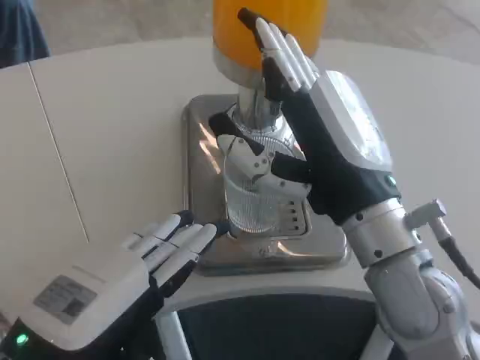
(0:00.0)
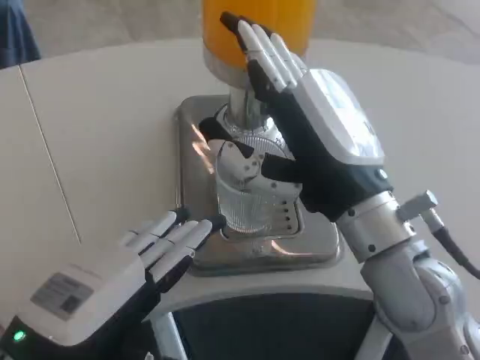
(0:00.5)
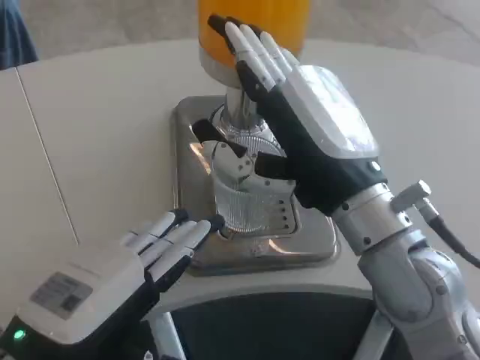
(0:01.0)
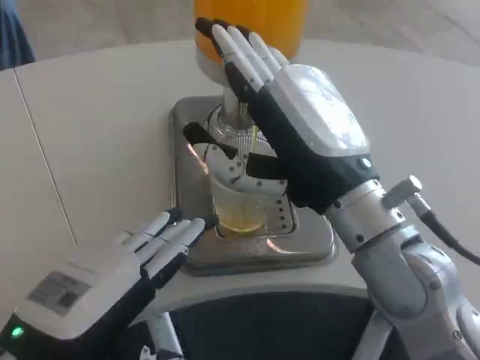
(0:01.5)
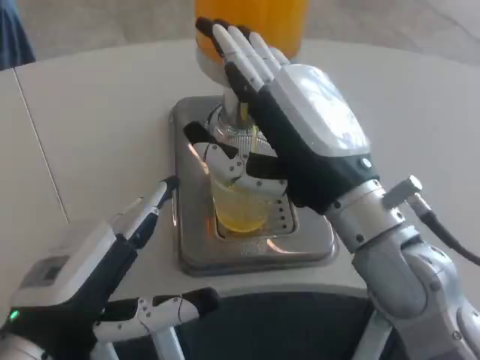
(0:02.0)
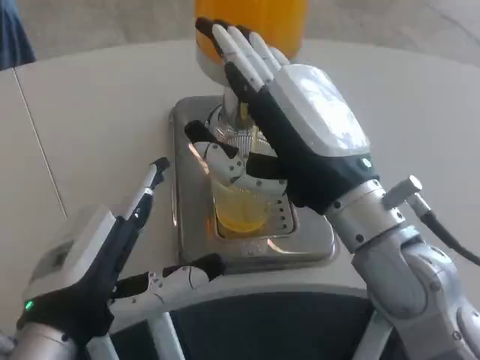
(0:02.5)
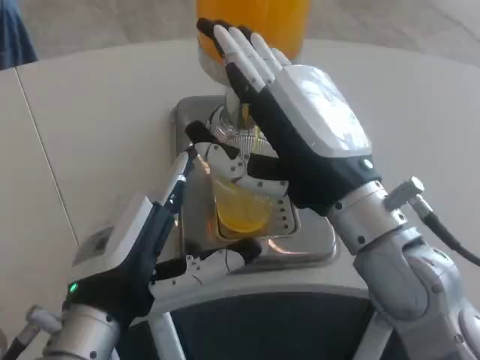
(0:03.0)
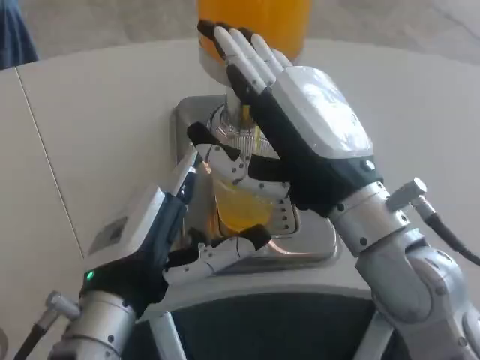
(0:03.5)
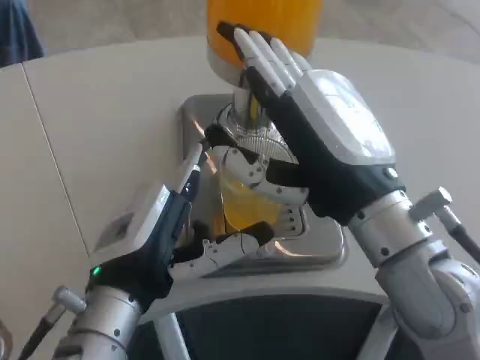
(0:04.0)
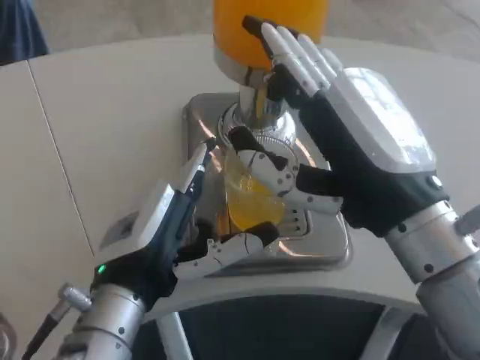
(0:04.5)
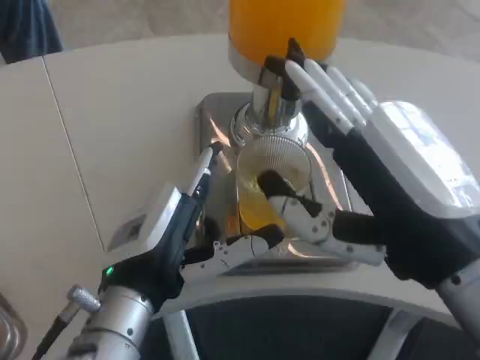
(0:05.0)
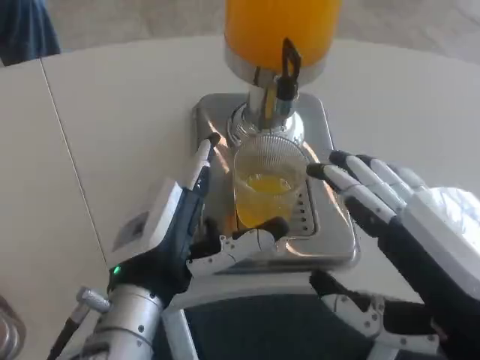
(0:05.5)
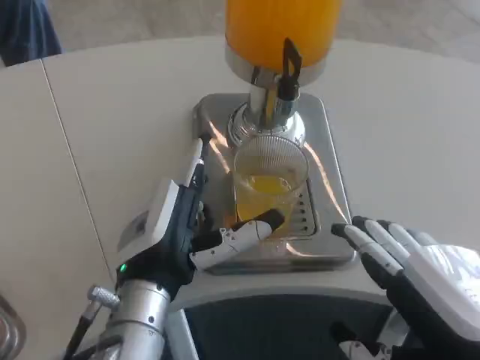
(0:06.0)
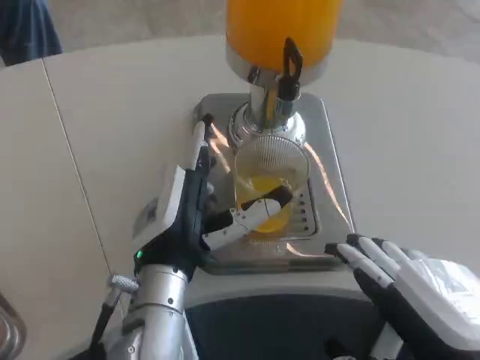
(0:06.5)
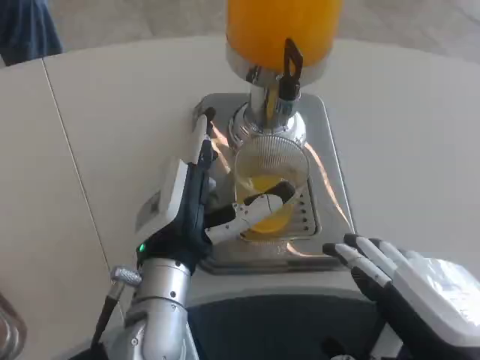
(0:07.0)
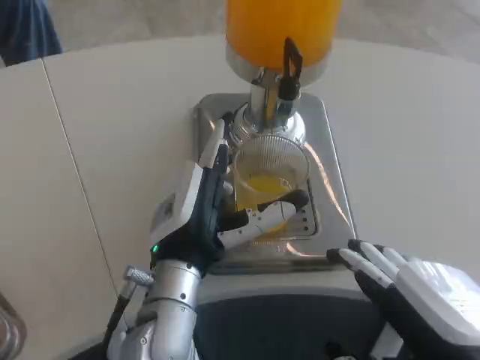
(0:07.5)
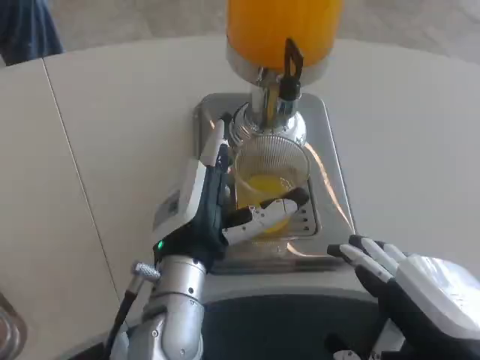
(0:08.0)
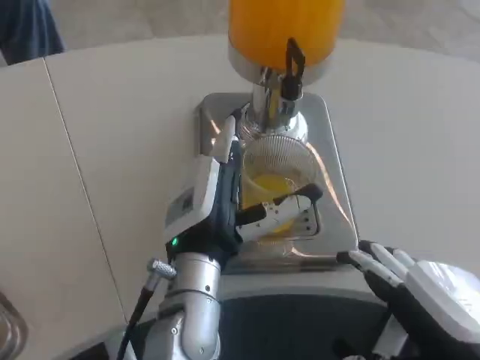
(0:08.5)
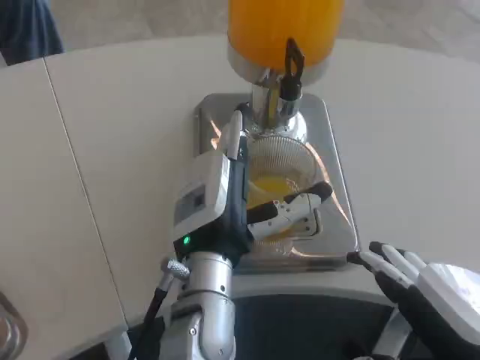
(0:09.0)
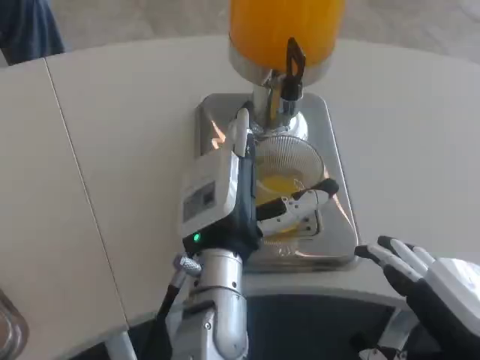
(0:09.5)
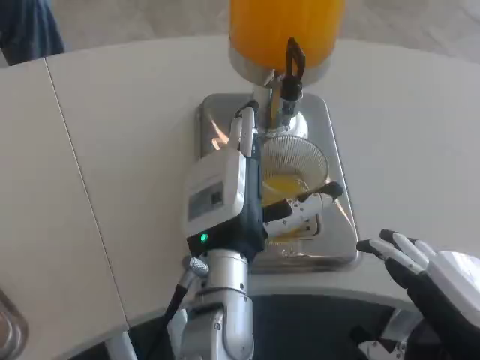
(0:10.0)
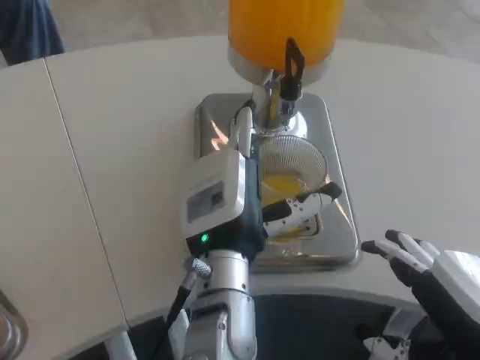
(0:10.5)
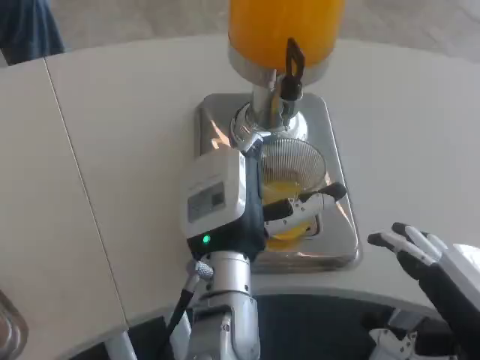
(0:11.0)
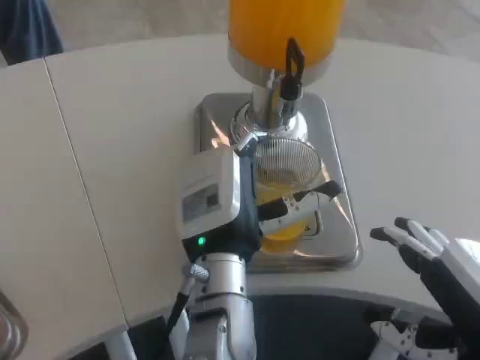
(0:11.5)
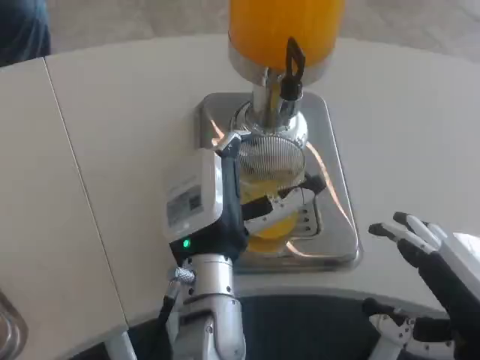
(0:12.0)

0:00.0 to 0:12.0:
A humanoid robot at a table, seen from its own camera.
Task of the whole recording: Grasp the cup under the faucet to collect the drink, then remove the cup.
0:02.0 to 0:04.0: The left hand moves to the right, roughly 5 cm.
0:04.0 to 0:06.0: The right hand moves backward and to the right, about 15 cm.
0:06.0 to 0:08.0: There are only small adjustments of the hands.
0:10.0 to 0:12.0: The hands make only small movements.

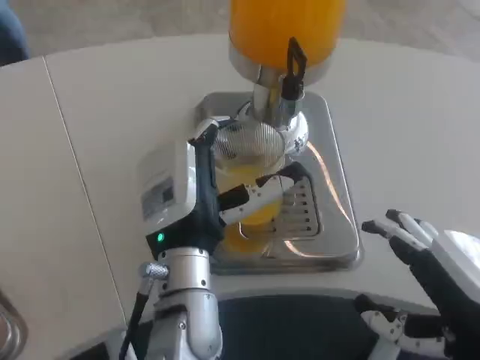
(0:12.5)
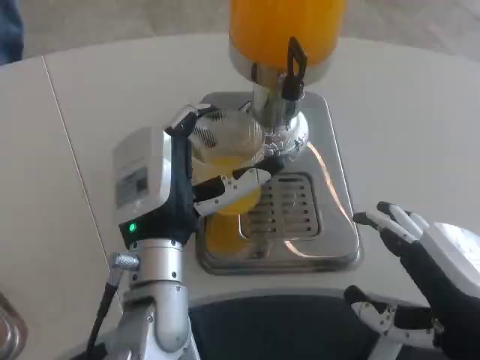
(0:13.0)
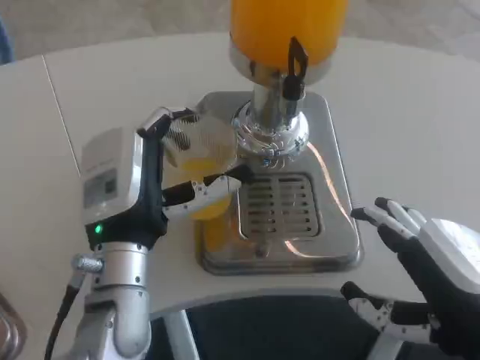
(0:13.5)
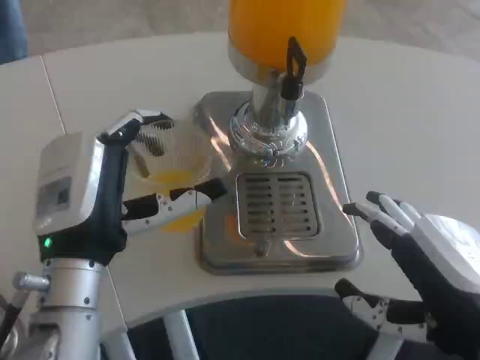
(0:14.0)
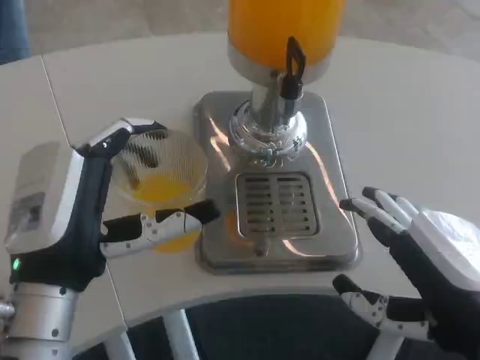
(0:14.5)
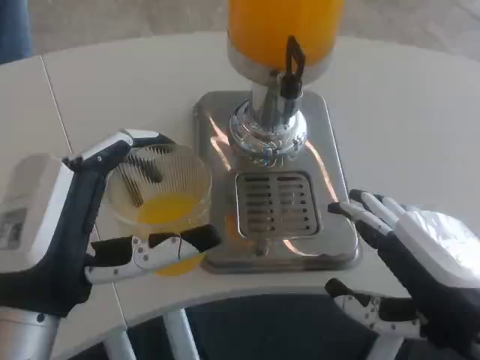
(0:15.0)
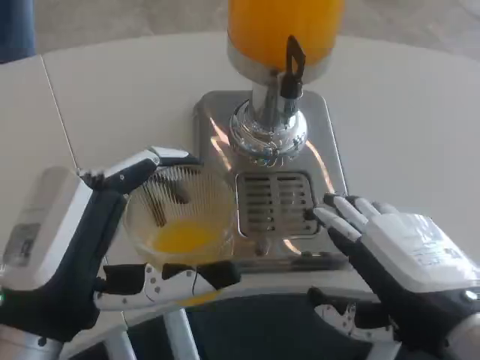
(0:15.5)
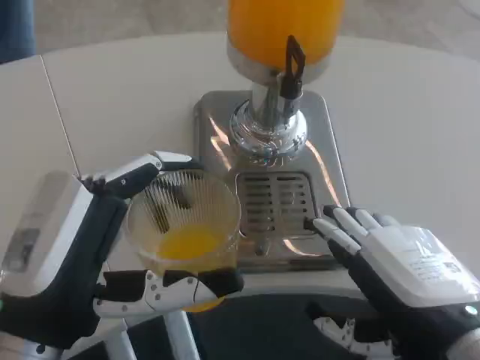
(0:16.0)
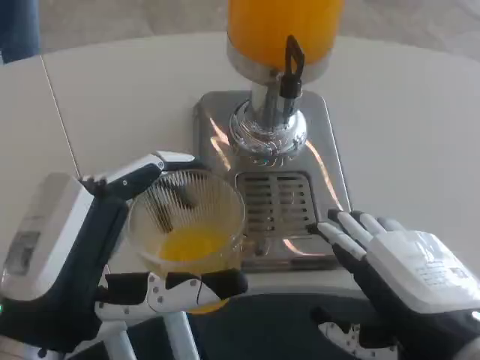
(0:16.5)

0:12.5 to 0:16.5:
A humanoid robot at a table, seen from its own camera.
Task of the whole recording: Grasp the cup under the faucet to collect the drink, then remove the cup.
0:12.5 to 0:14.5: The left hand travels to the left and backward by about 15 cm.
0:14.5 to 0:16.5: The left hand heads backward, covering some 5 cm.

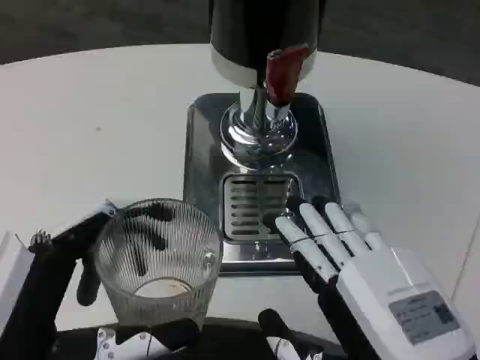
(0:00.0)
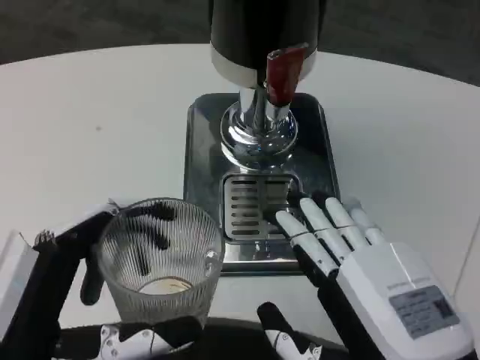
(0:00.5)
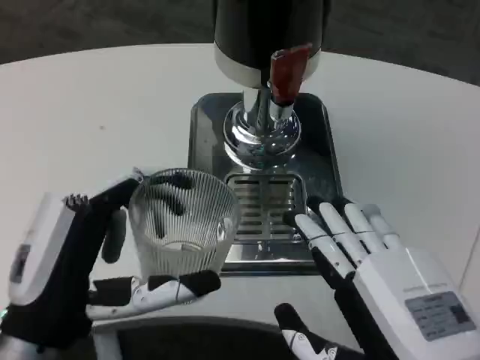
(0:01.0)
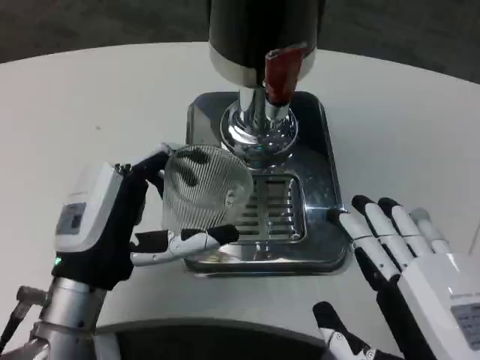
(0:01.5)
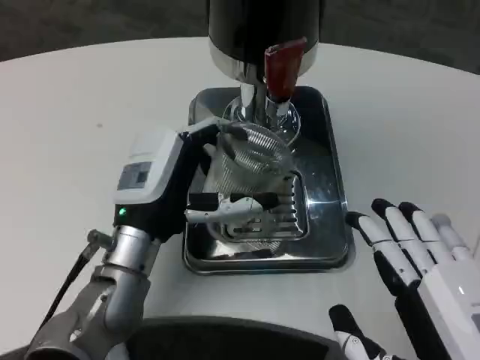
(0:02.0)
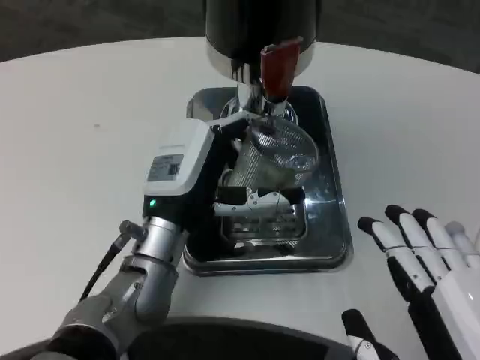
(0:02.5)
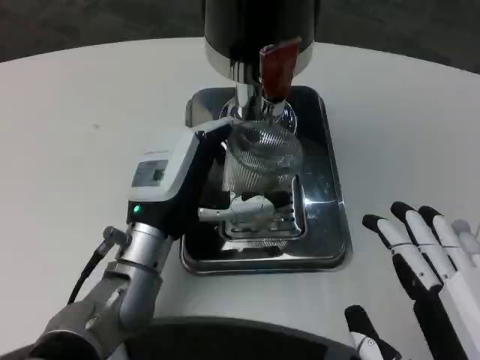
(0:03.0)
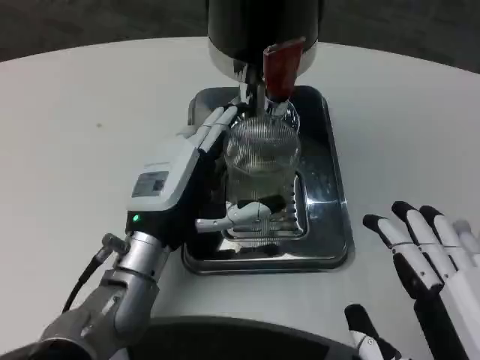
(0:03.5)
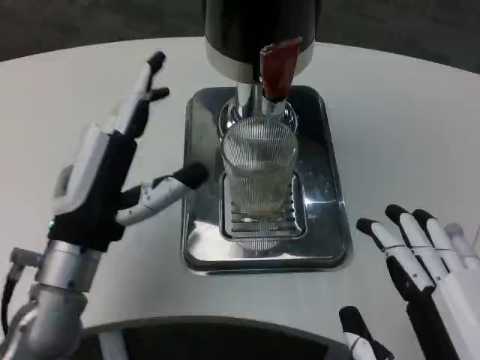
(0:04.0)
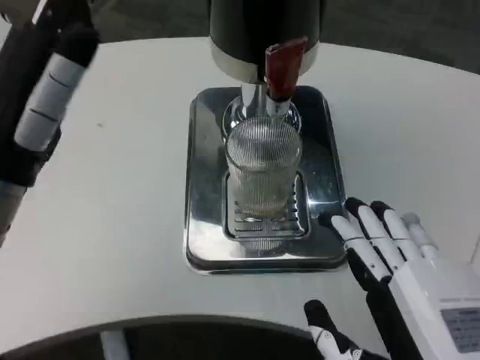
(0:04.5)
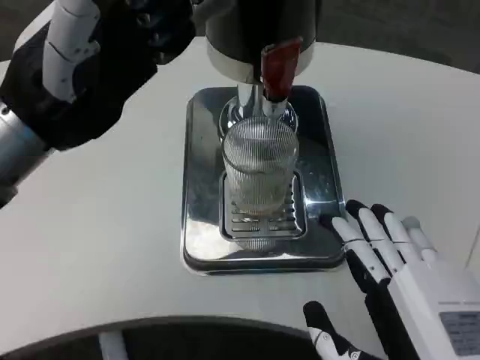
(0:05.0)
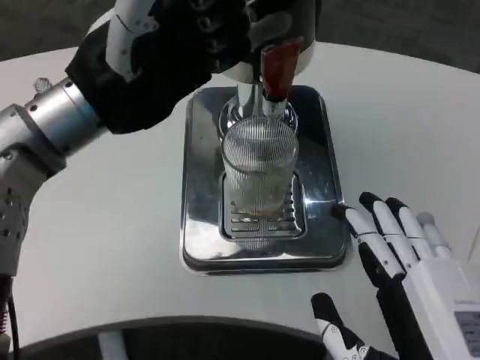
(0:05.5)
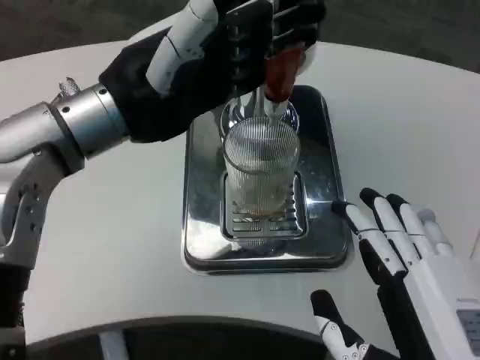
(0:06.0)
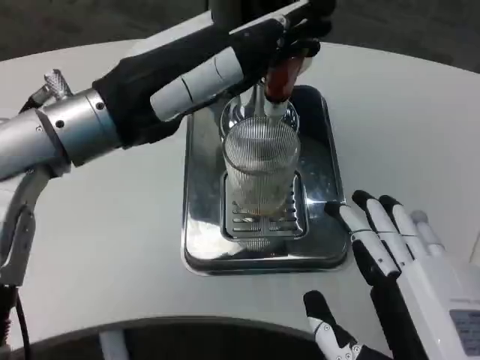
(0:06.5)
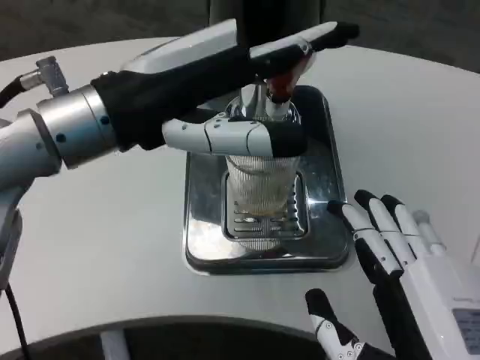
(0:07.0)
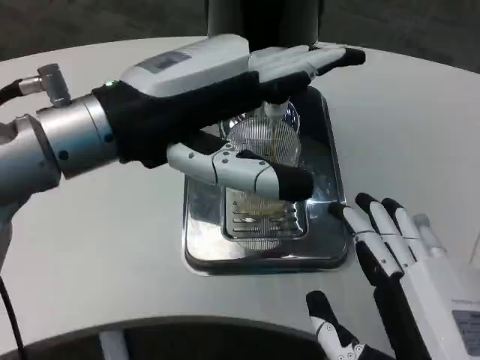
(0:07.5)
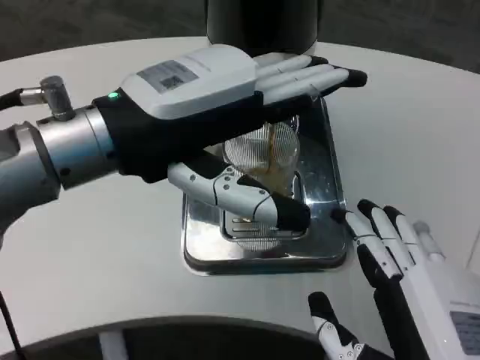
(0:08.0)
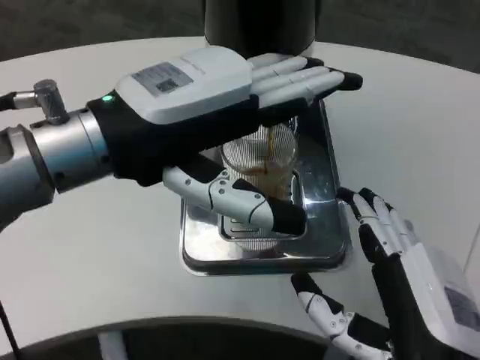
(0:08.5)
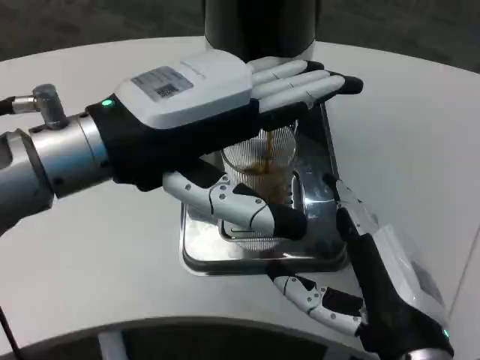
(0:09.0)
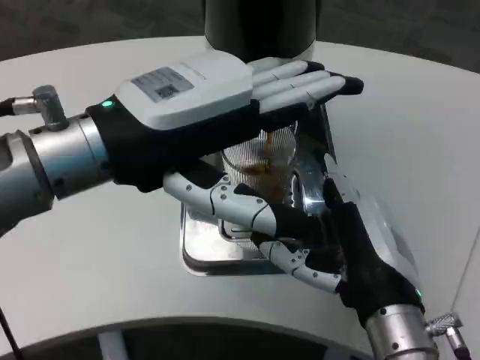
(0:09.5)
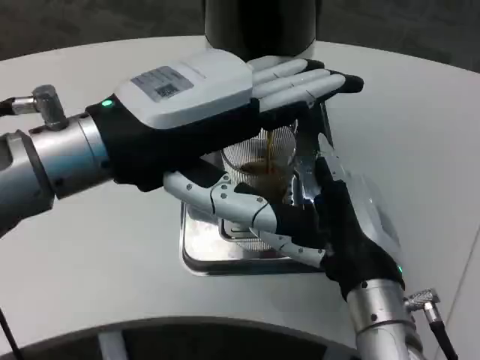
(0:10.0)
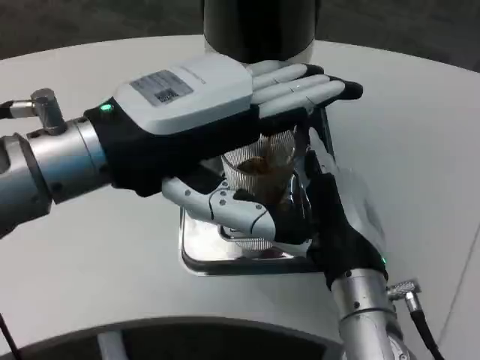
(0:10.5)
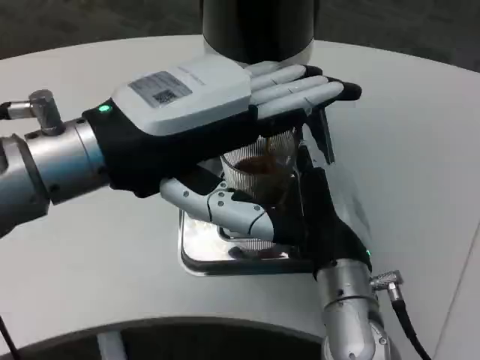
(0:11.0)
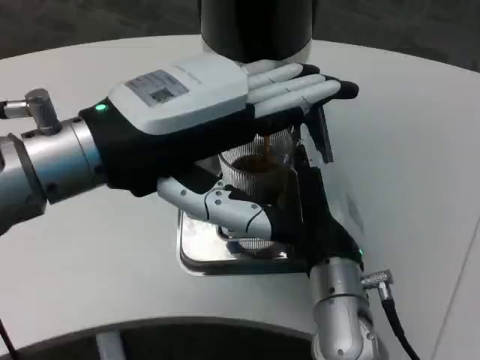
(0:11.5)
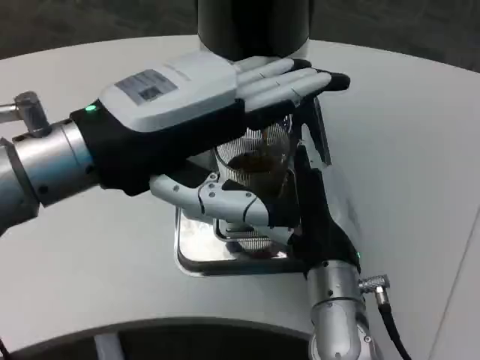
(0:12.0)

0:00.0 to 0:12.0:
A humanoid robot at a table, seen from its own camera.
Task of the whole recording: Grasp the cup under the faucet to collect the drink, then remove the cup.
0:00.0 to 0:02.0: The left hand heads forward, covering approximately 20 cm.
0:02.0 to 0:04.0: The left hand ends up roughly 5 cm from where it was.
0:04.0 to 0:06.0: The left hand is displaced upward by approximately 15 cm.
0:06.0 to 0:08.0: The left hand moves backward, about 5 cm.
0:08.0 to 0:10.0: The right hand is displaced forward by approximately 15 cm.
0:10.0 to 0:12.0: The right hand ends up about 5 cm from where it was.
